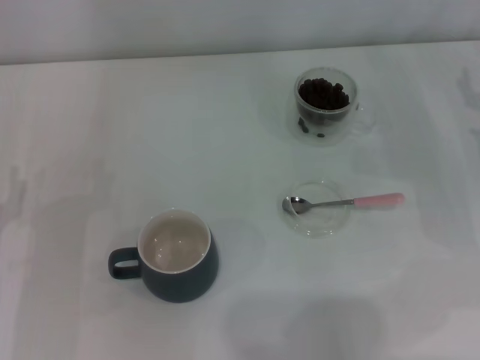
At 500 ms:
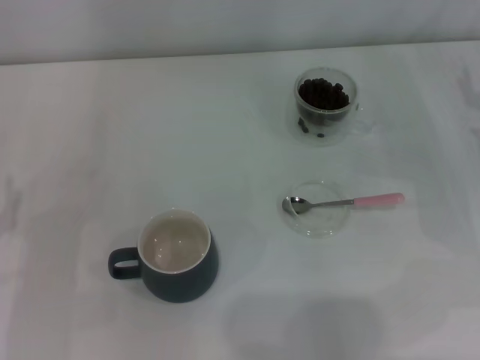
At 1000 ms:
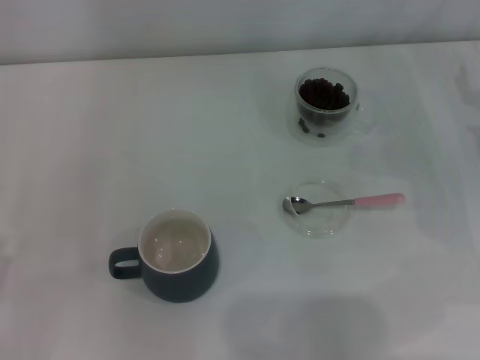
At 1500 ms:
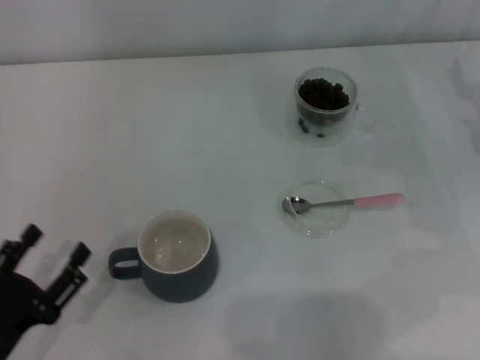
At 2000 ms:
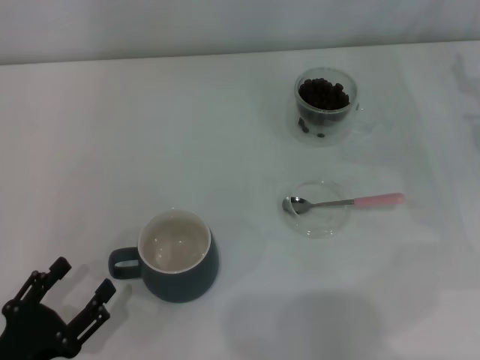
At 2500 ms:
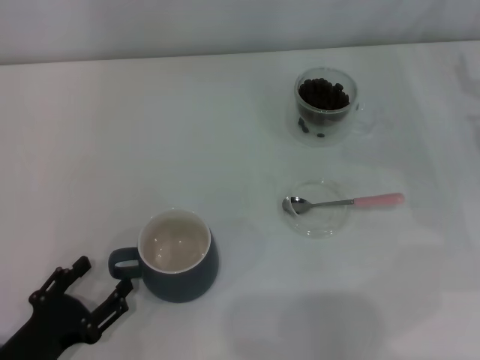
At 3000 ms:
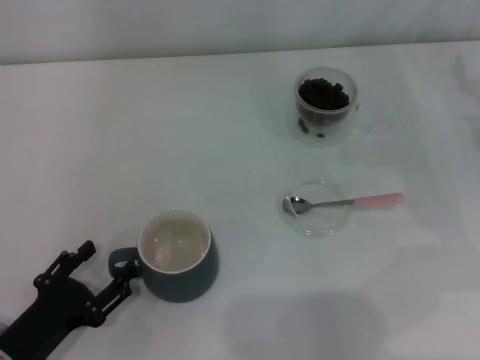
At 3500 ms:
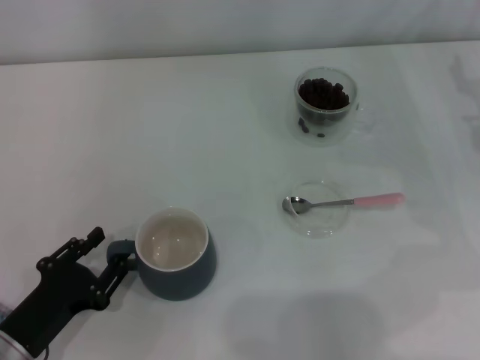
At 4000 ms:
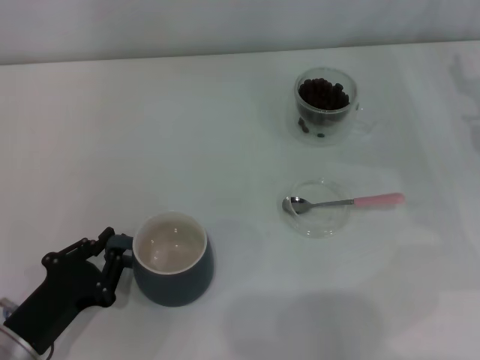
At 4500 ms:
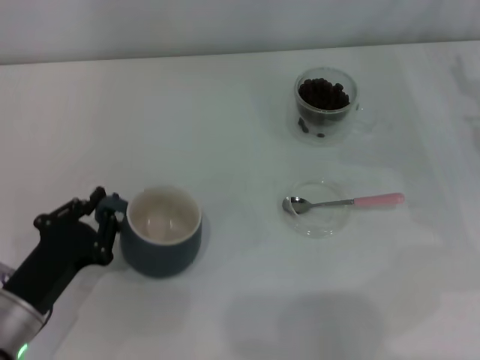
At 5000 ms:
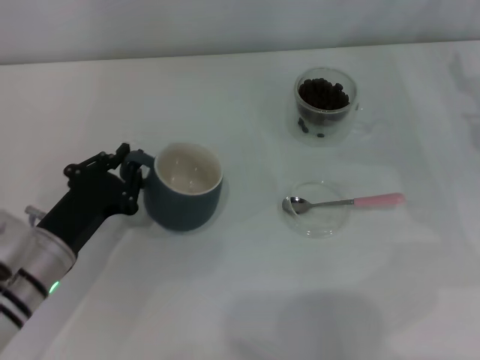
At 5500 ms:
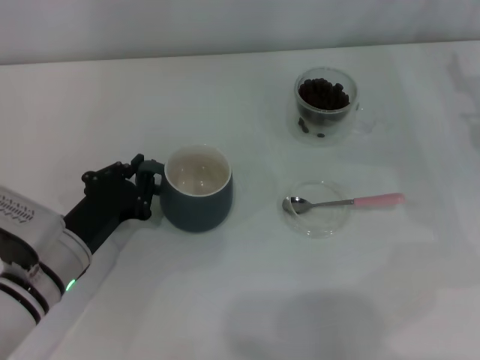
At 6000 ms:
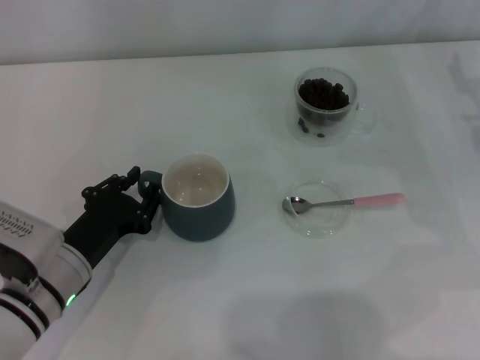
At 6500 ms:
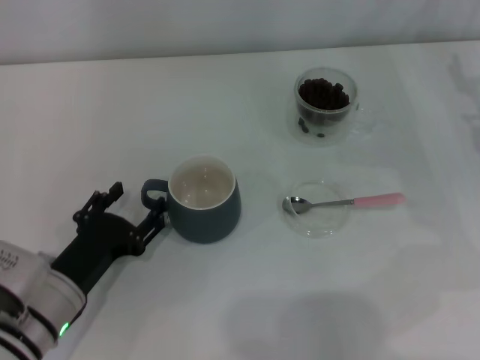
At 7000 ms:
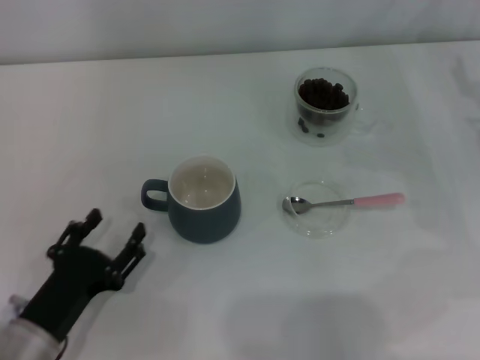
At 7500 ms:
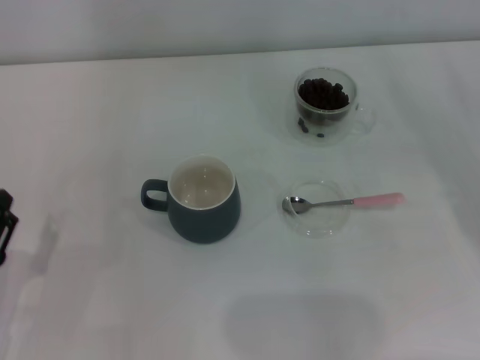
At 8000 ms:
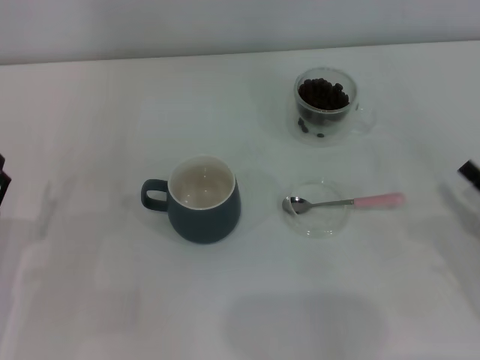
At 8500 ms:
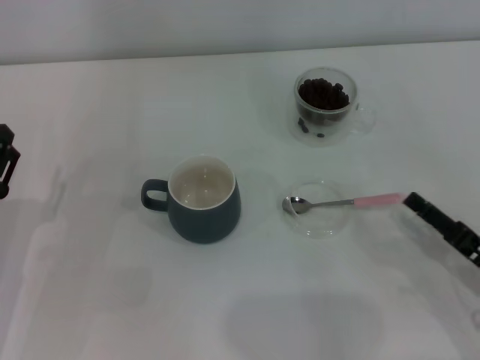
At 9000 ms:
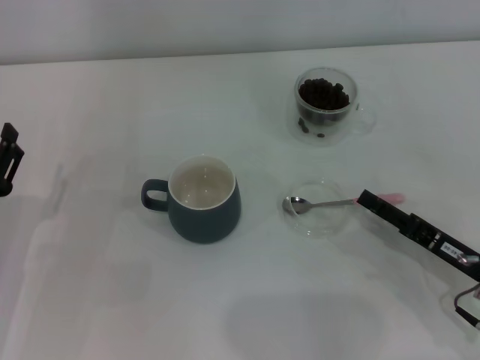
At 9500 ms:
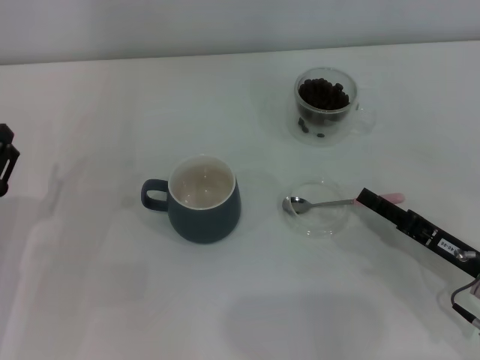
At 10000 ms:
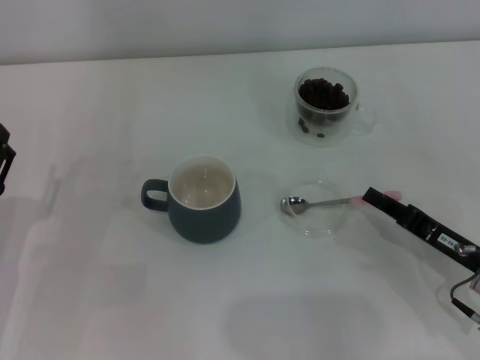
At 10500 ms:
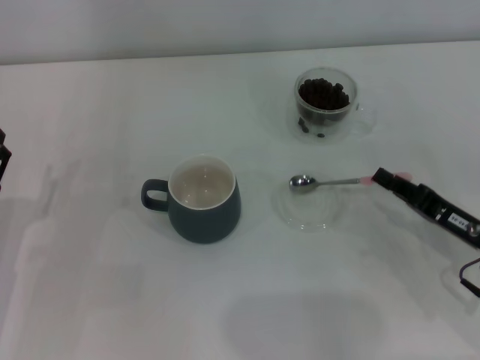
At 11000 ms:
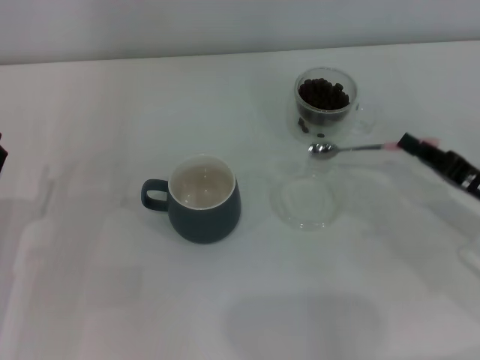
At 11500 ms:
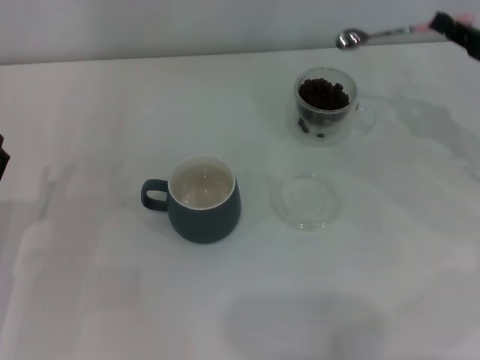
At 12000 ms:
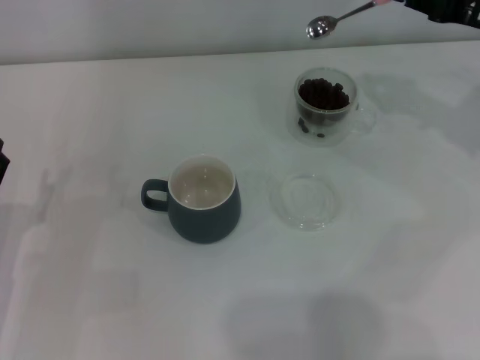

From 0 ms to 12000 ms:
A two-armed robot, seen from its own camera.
Task of the whole recording: Use a pink spoon to take out the coffee beans from the glass and pour them into the gray cup.
Step, from 0 ms to 7000 ms: Move the cup to the center of view with the left gripper.
Step, from 7500 ms to 10500 ms: Pick up the spoon with the right gripper.
From 0 ms to 2000 ms: The left gripper travels backward by roughly 10 cm.
From 2000 ms to 4000 ms: The left gripper heads forward, covering about 5 cm, and closes its fingers.
From 4000 ms to 6000 ms: The left gripper is displaced forward and to the right by approximately 10 cm.
From 6000 ms to 8000 ms: The right gripper heads backward, covering approximately 20 cm; the left gripper travels to the left by approximately 10 cm, and opens up.
From 8000 ms to 10000 ms: The right gripper shifts approximately 5 cm to the left, and closes up.
From 10000 ms to 12000 ms: The right gripper goes about 25 cm forward and upward.

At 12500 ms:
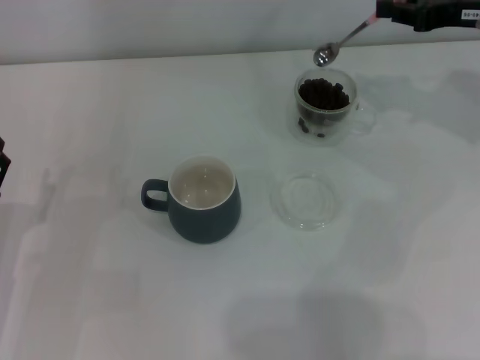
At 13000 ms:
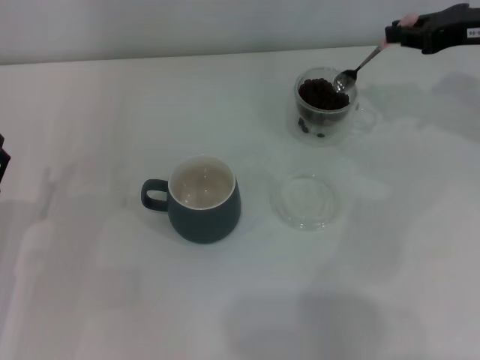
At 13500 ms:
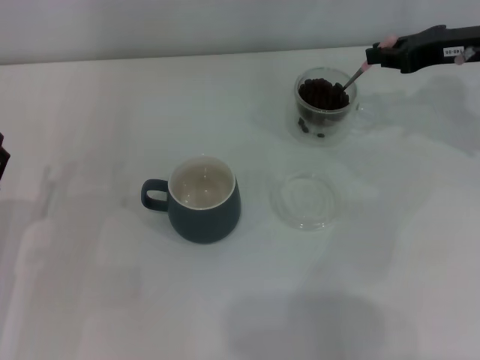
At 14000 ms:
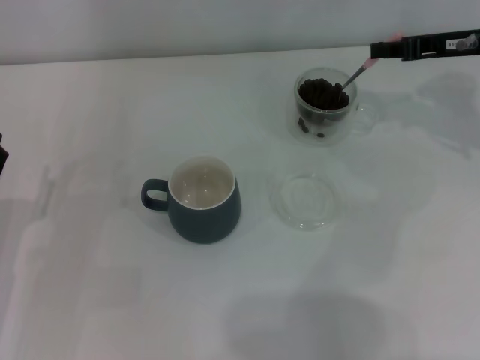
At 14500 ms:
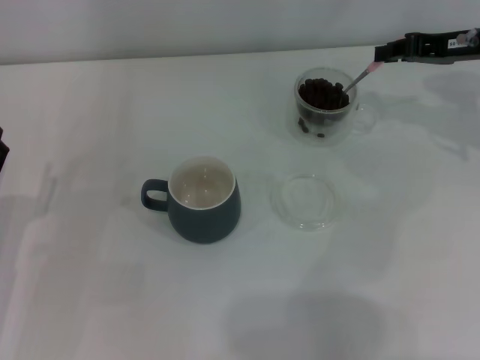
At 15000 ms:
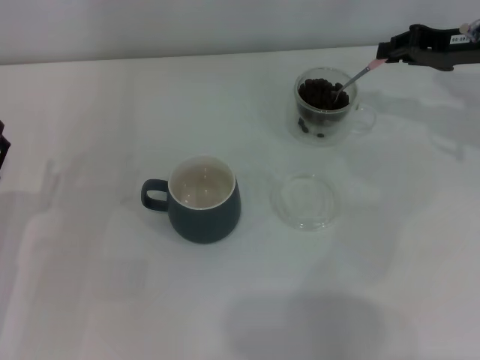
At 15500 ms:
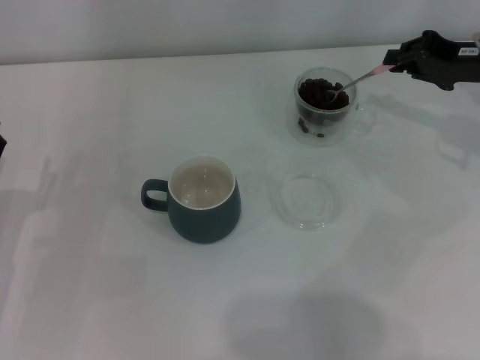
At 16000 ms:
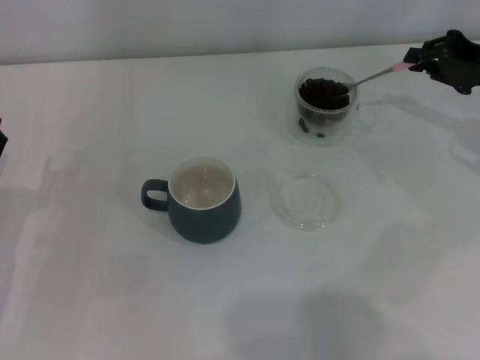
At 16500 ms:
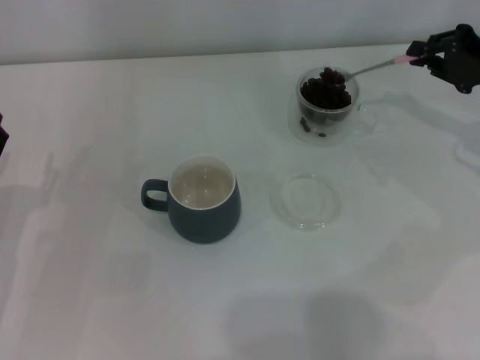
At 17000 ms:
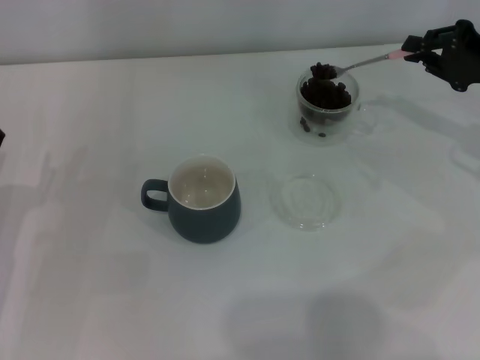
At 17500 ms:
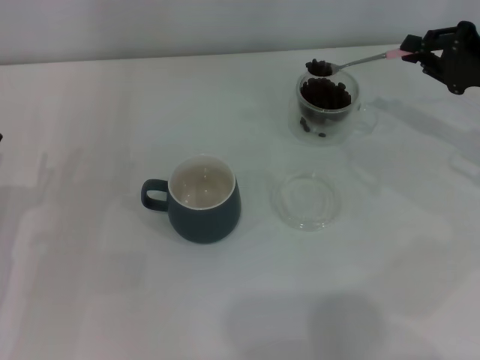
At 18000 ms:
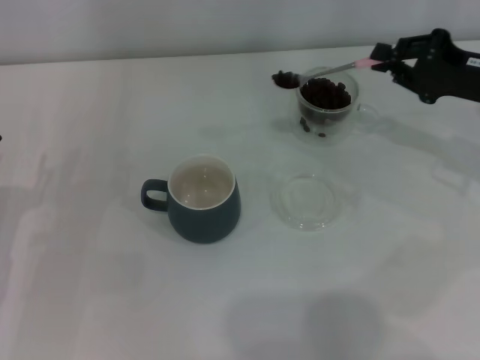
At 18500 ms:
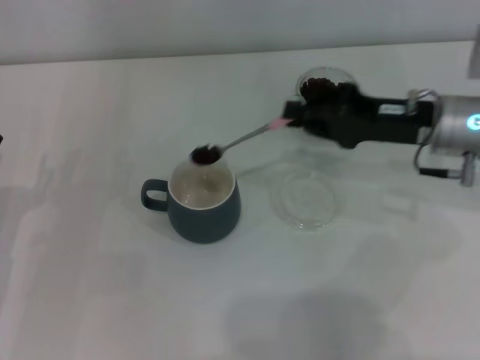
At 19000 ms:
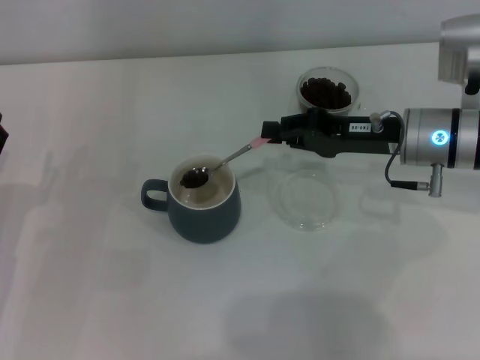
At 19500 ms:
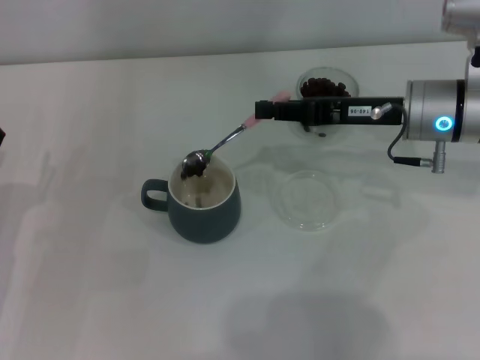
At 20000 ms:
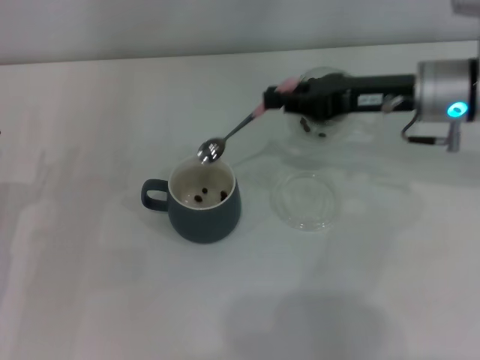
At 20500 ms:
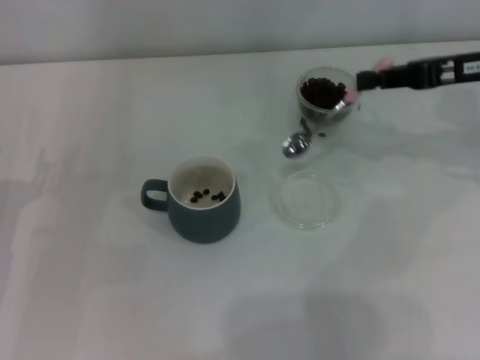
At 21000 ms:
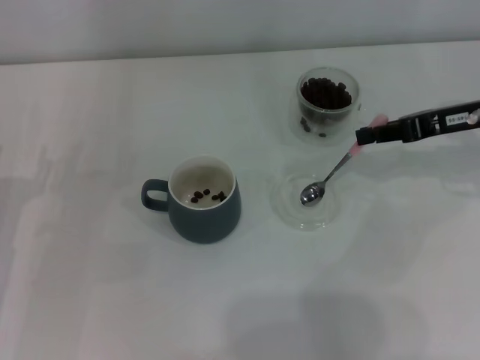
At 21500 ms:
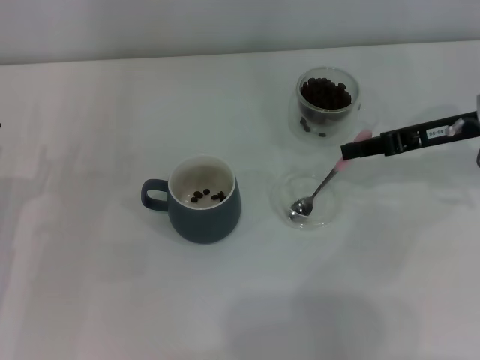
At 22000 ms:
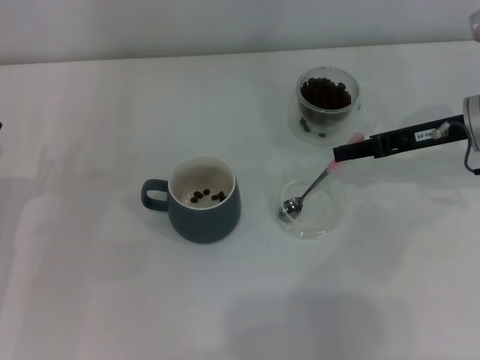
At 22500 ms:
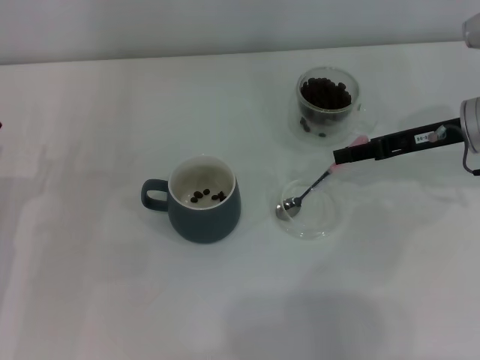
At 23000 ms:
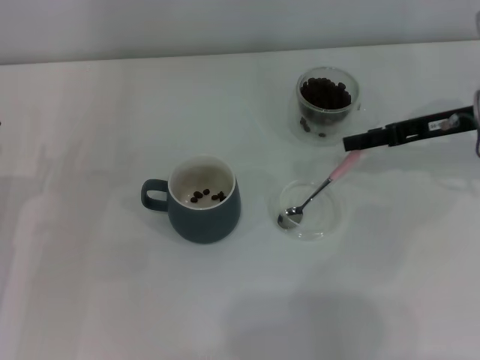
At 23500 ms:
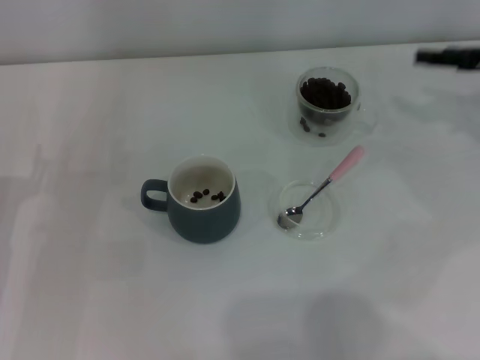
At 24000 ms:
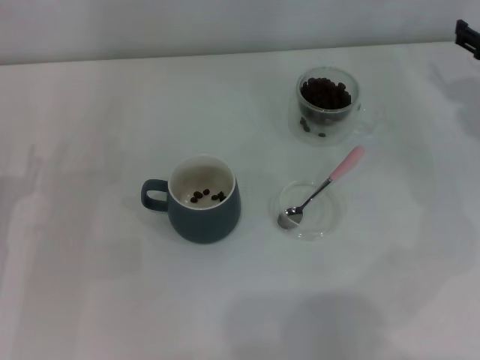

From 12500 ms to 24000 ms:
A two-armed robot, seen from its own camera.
Task of the whole recording: Use a pink spoon to take out the coffee beans from the glass and pour them into the gray cup.
Step, from 12500 ms to 19500 ms: Scoop a spoonful of beans into the cup with the right gripper.
Step, from 20500 ms to 23000 ms: Place the spoon back in its original place with the right gripper.
From 14500 ms to 16500 ms: The right gripper changes place by some 5 cm.
From 16500 ms to 18500 ms: The right gripper goes some 10 cm to the left.
From 20000 ms to 22000 ms: The right gripper moves to the right, about 5 cm.
From 22000 ms to 24000 ms: The right gripper goes approximately 10 cm to the right, and opens.
